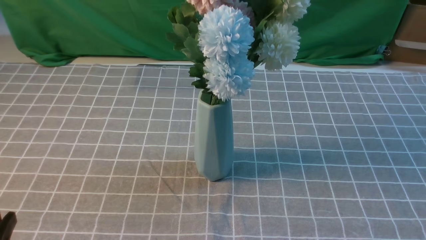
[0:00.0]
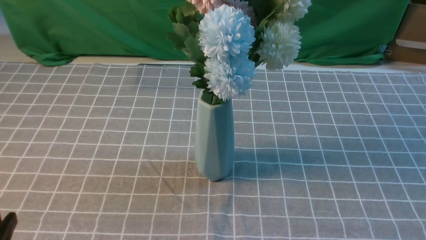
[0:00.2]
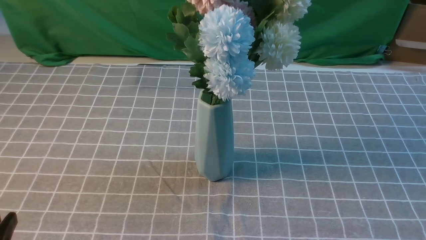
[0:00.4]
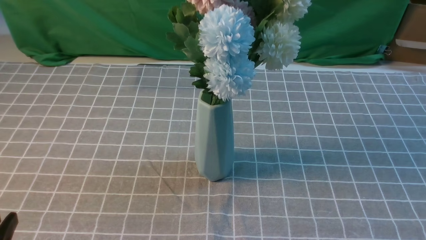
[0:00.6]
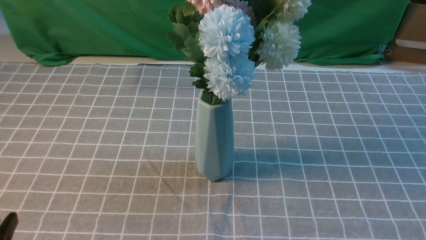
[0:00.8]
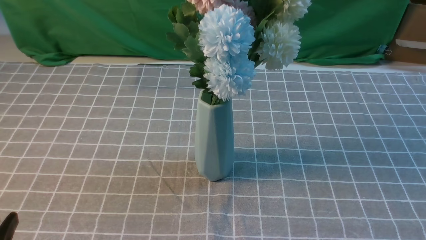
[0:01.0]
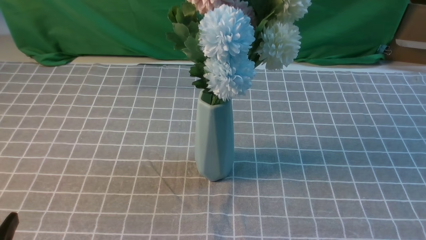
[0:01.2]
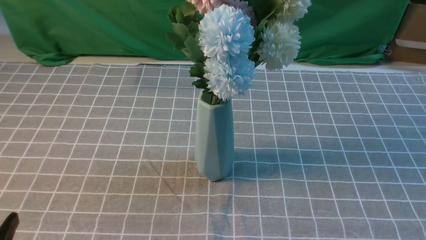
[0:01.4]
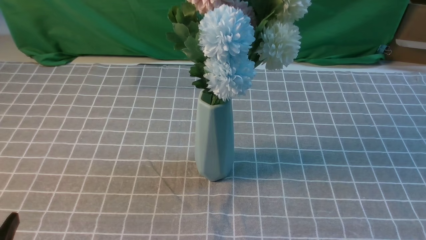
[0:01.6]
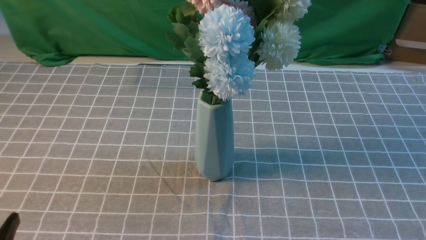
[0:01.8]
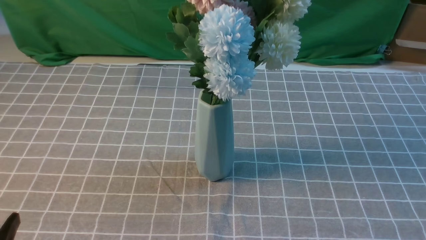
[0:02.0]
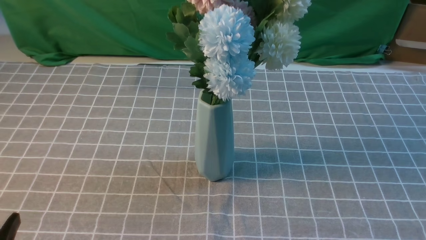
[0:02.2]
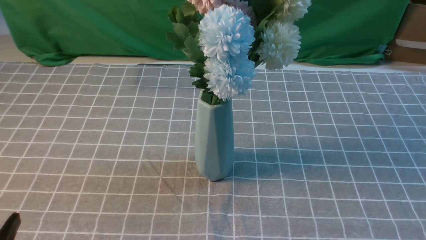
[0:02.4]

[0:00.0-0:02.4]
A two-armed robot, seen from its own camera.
Task of the whole recording: insert the flowers into the vase on the table with the grey tablecloth.
0:00.0 to 0:02.4: The two grippers keep their place.
